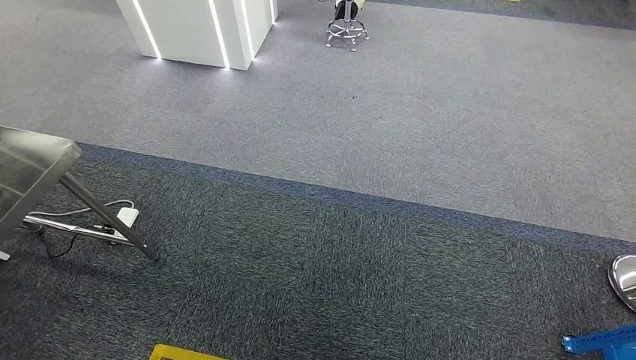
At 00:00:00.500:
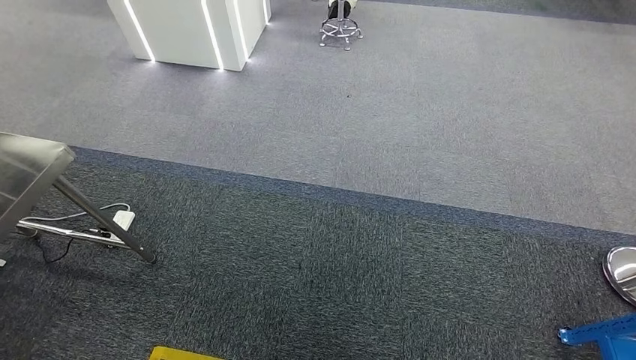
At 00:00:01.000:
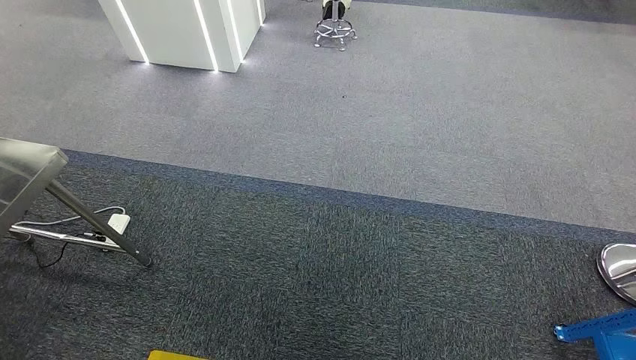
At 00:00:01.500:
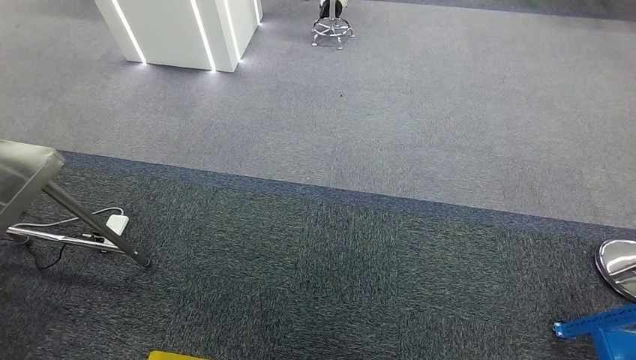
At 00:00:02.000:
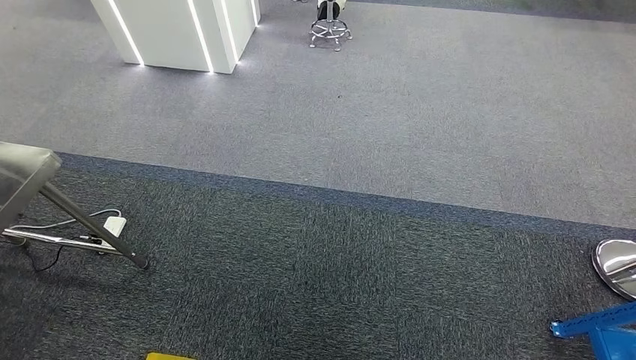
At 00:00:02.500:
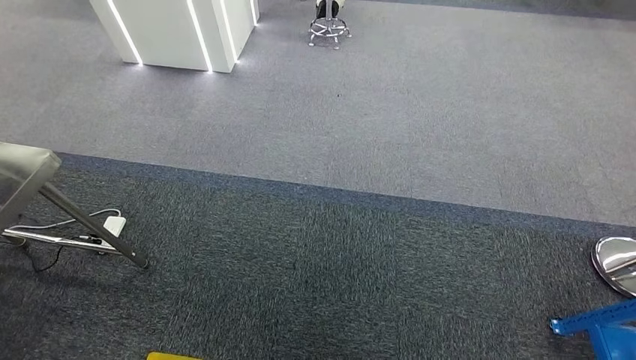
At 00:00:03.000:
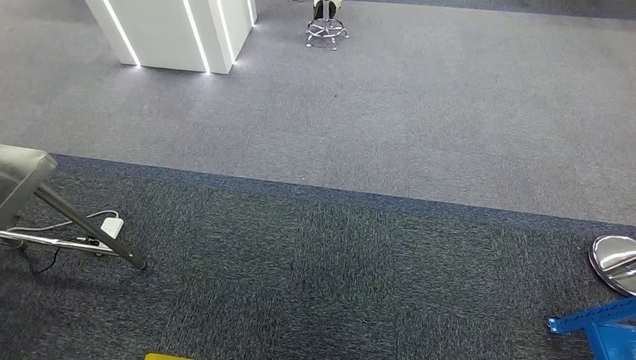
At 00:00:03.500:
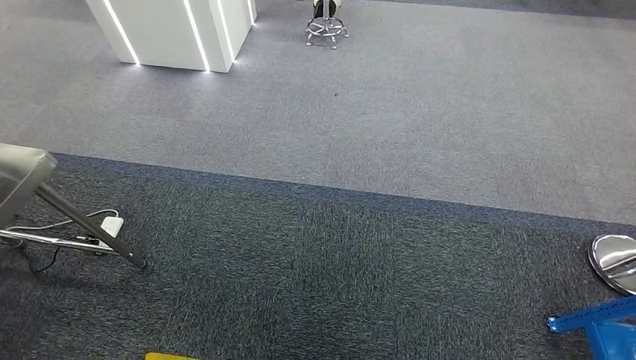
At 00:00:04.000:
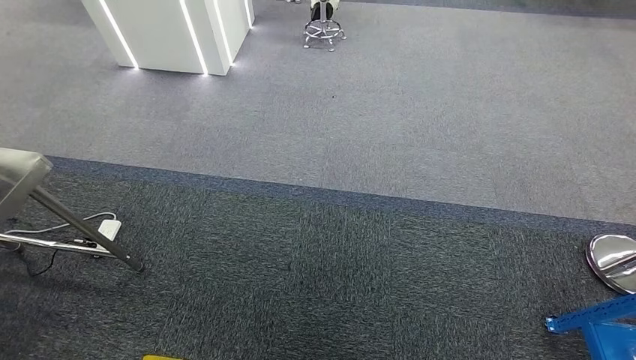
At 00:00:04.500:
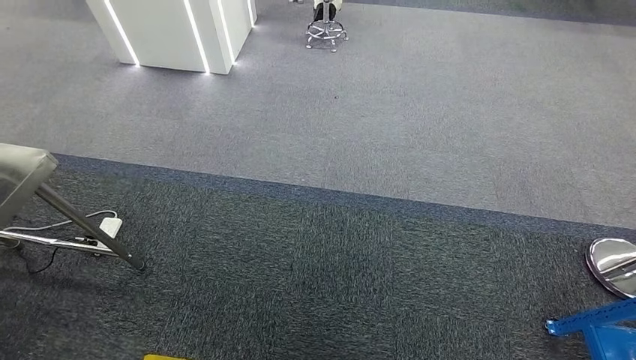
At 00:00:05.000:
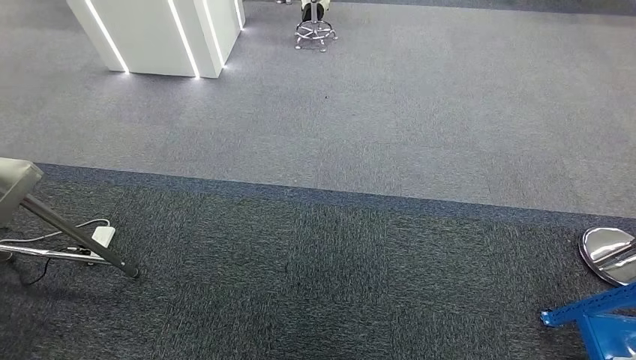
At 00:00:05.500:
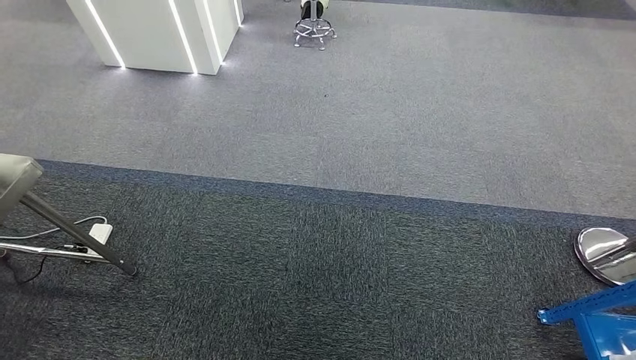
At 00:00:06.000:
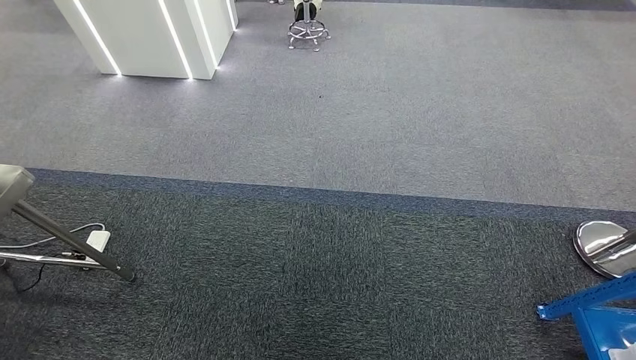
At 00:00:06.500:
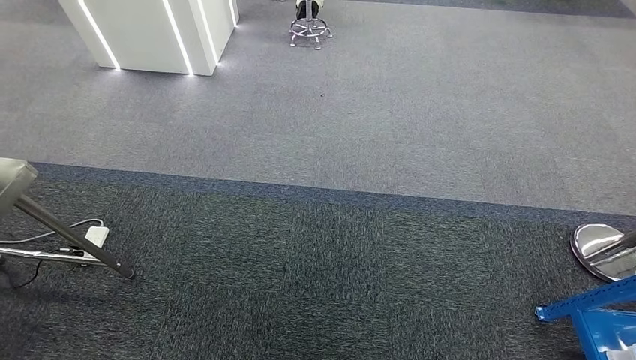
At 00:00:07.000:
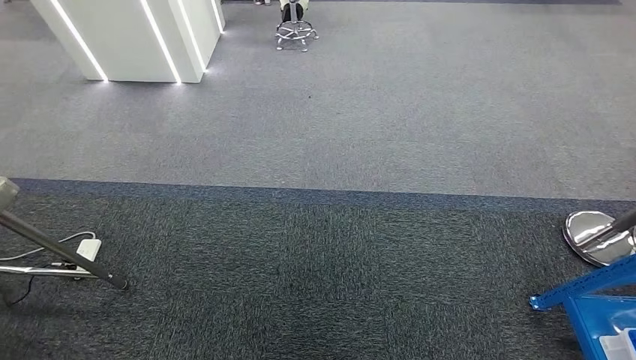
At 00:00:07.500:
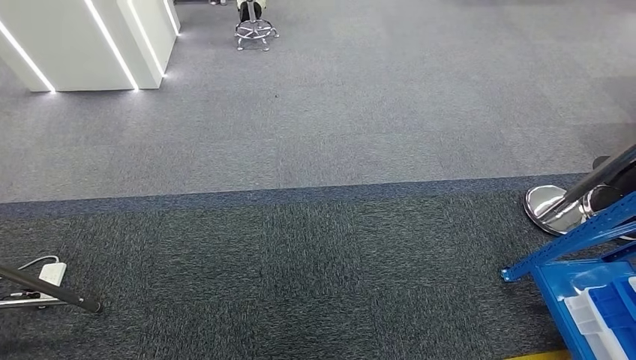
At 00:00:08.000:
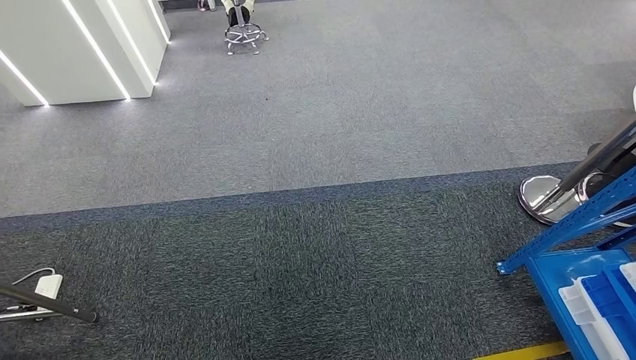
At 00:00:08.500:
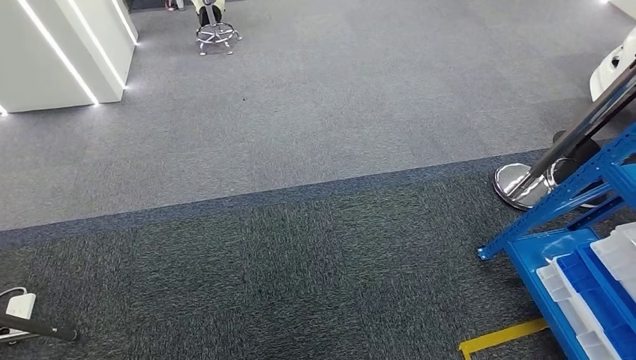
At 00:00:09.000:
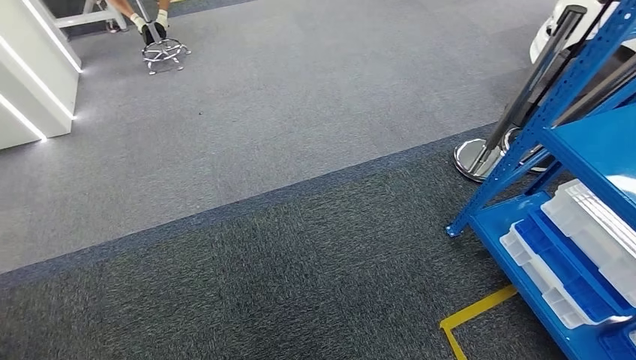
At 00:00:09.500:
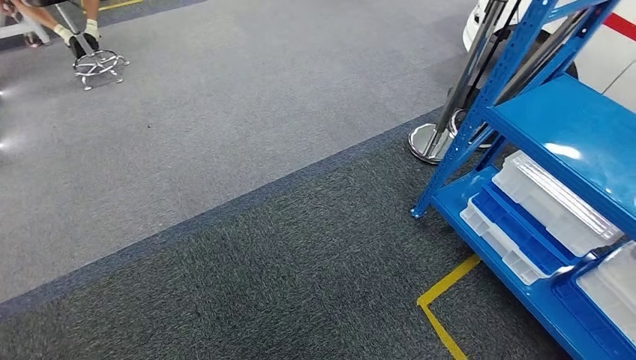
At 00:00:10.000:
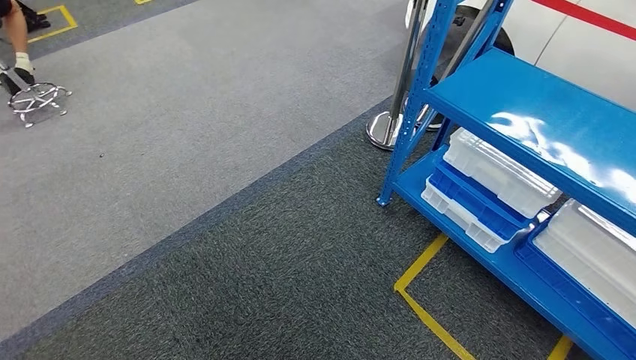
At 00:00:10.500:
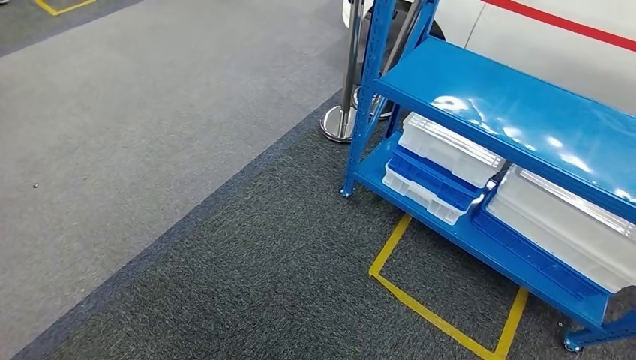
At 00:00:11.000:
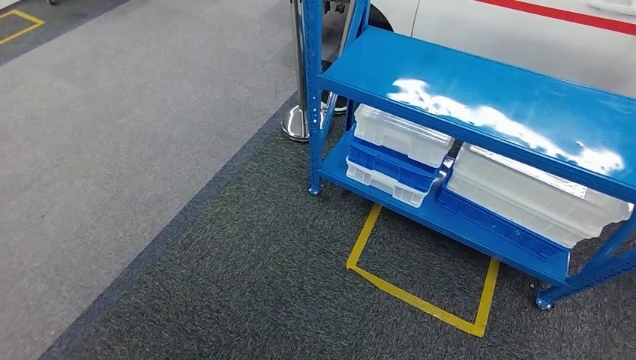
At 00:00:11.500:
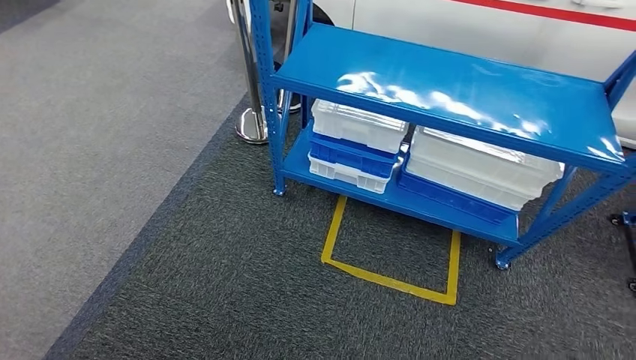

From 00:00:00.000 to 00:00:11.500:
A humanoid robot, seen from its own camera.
Step, from 00:00:00.000 to 00:00:11.500: Move to the initial position of the shelf.
From 00:00:00.000 to 00:00:04.000: The two hands keep their place.
From 00:00:04.000 to 00:00:06.000: The hands stay close to where they were, moving slightly.
